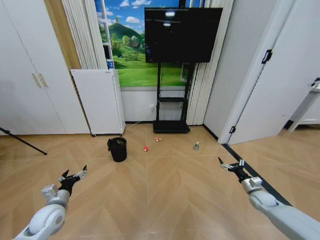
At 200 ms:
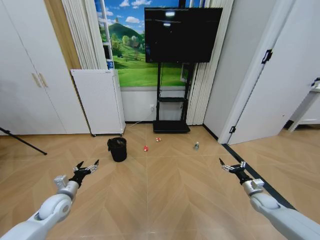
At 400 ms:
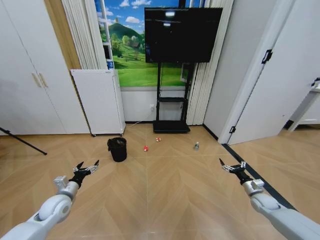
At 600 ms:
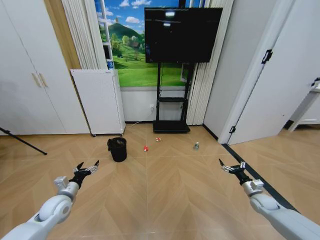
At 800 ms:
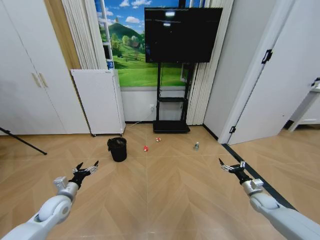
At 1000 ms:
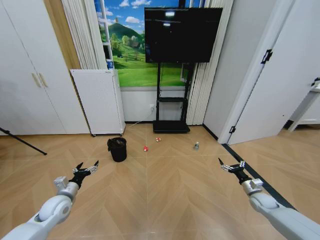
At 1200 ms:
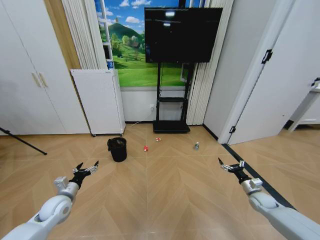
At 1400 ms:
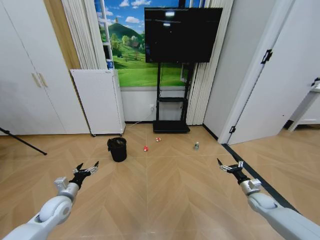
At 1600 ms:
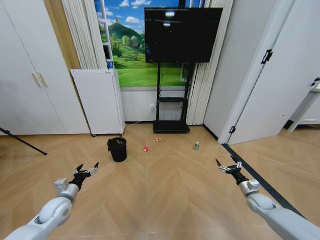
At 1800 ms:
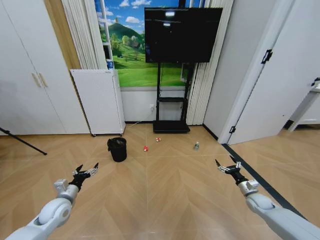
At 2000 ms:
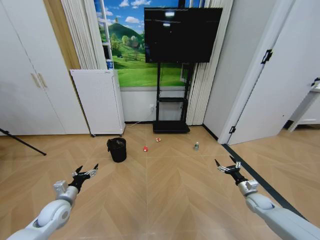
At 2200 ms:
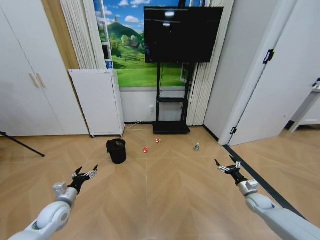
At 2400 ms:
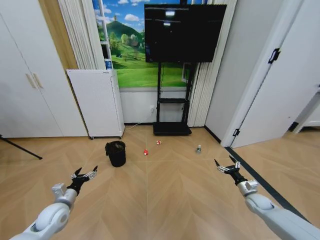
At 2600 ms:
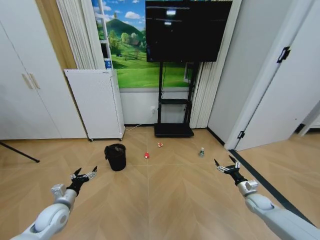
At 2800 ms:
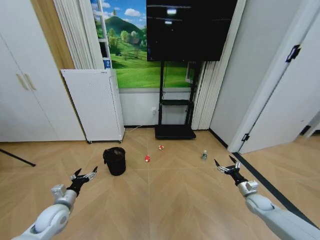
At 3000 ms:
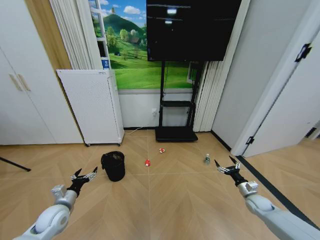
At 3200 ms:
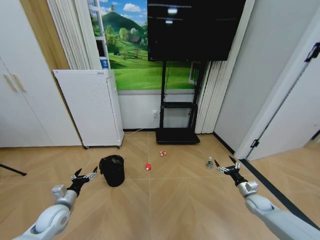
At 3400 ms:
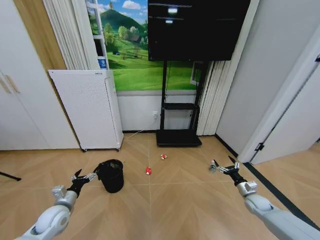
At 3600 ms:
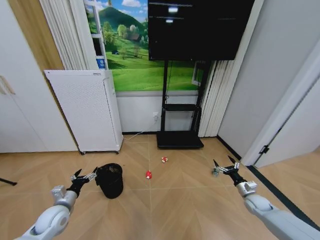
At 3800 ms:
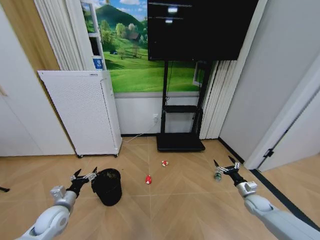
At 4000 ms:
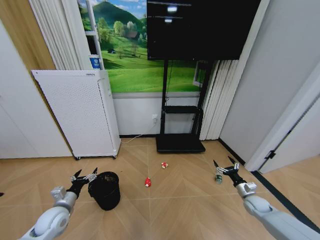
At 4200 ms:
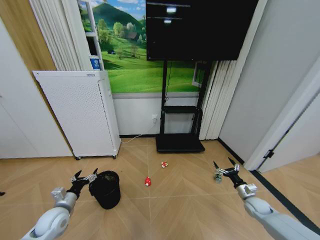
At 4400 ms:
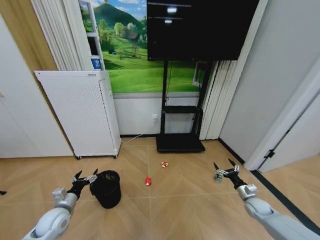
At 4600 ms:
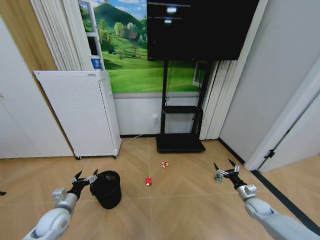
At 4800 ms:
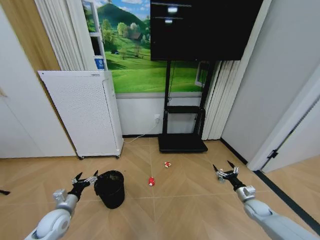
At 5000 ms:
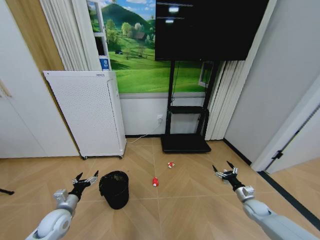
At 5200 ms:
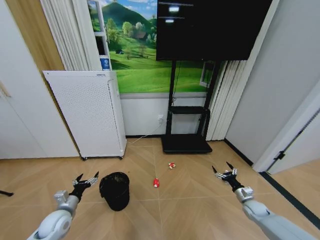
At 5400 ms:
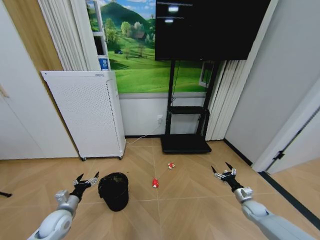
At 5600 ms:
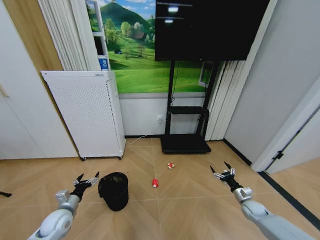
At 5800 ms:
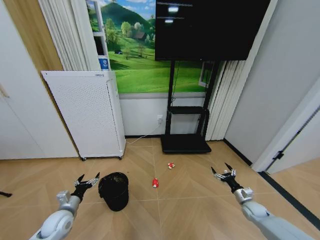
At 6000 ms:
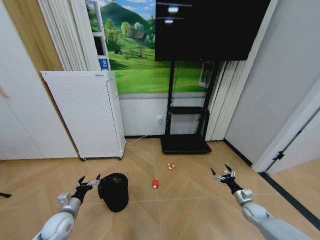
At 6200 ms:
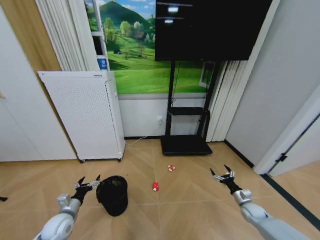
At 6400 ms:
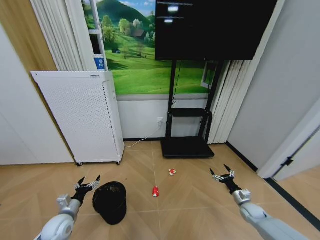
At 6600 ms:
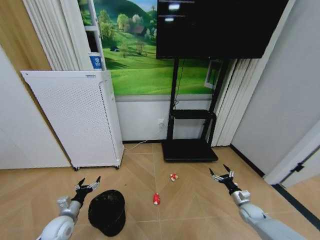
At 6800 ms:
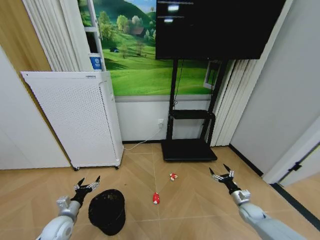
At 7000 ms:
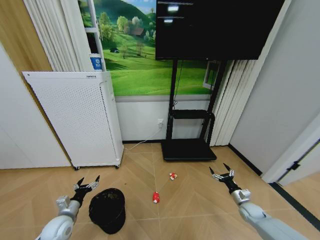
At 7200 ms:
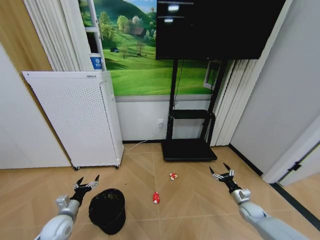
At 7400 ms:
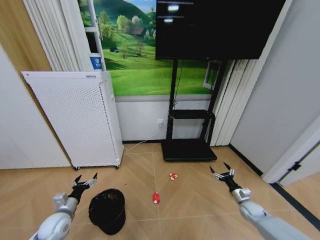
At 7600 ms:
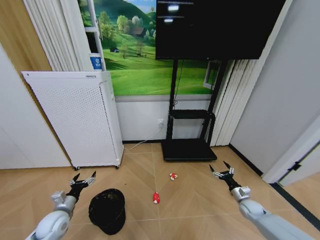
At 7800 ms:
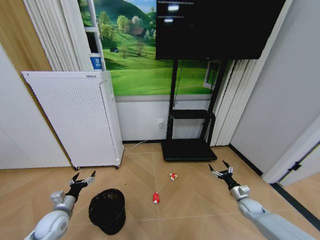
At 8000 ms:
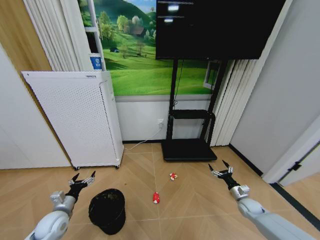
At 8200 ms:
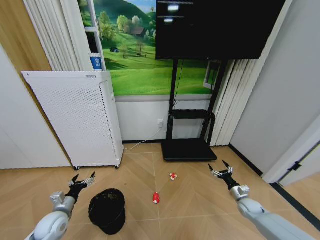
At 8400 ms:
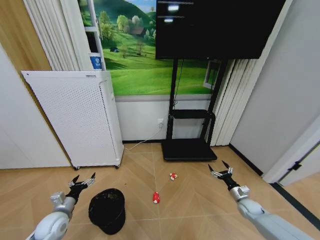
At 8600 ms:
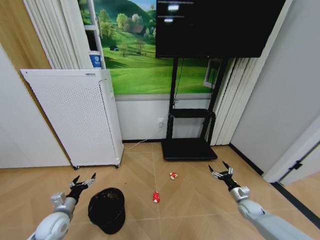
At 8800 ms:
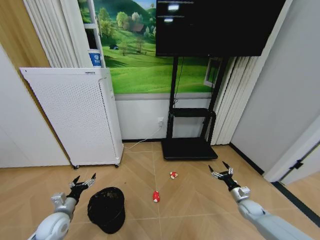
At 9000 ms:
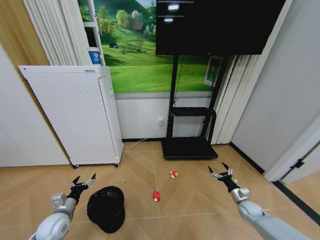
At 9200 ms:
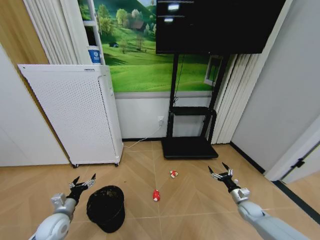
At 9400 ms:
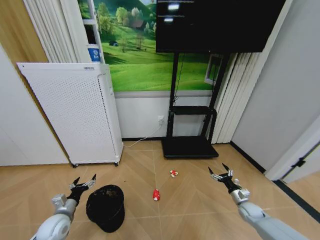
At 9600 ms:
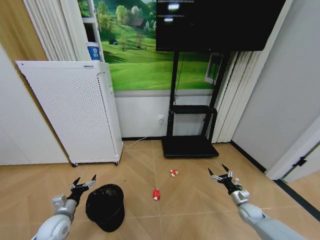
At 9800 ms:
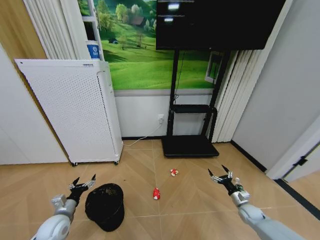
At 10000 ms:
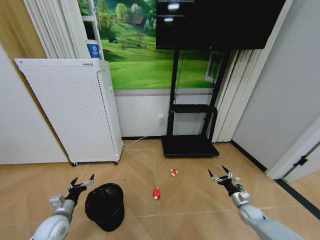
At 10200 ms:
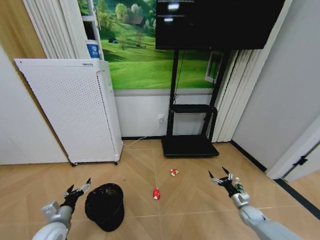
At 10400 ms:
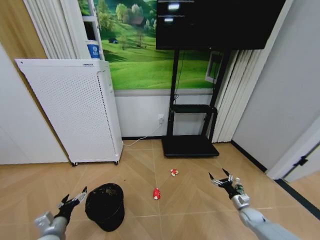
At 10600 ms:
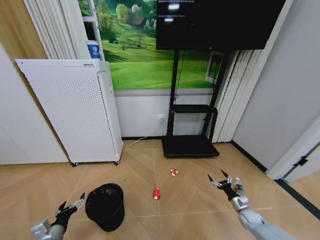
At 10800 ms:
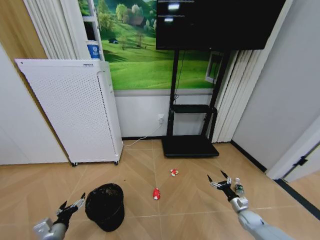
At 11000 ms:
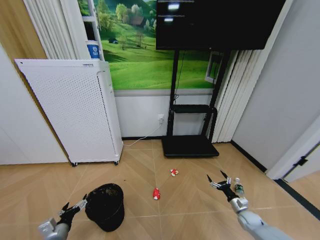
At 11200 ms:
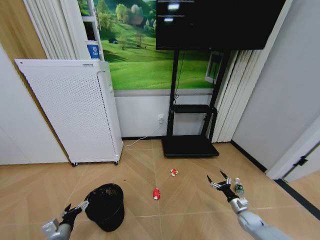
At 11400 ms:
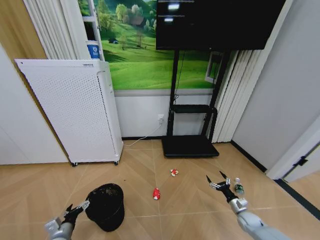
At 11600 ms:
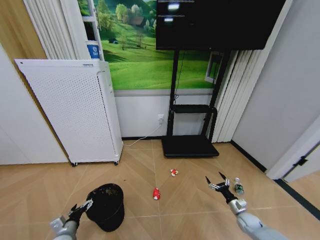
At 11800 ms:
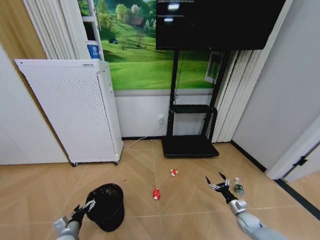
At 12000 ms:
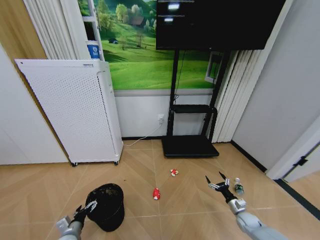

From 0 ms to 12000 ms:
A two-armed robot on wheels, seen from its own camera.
Task of the whole recording: Pick up the trash bin and place the garbage on the floor into it.
From 7600 ms to 9000 ms: Neither gripper changes place.
From 9000 ms to 10400 ms: The left gripper shifts roughly 5 cm backward.
From 10400 ms to 12000 ms: The left gripper heads downward, covering some 10 cm.

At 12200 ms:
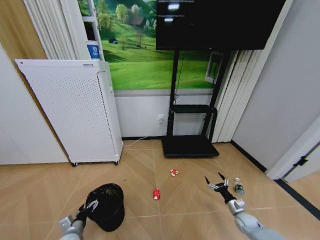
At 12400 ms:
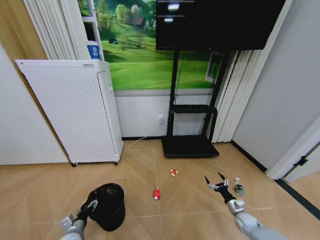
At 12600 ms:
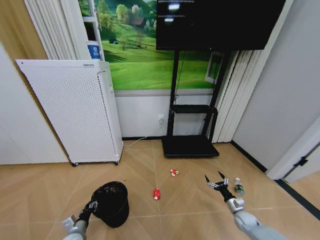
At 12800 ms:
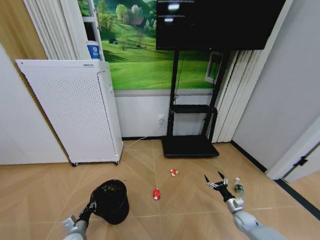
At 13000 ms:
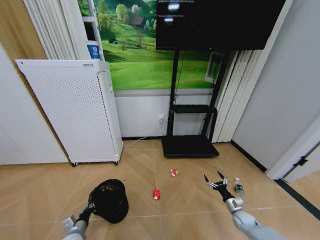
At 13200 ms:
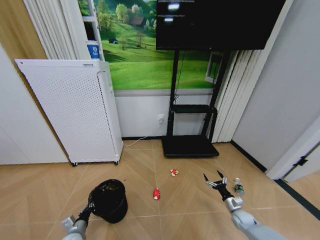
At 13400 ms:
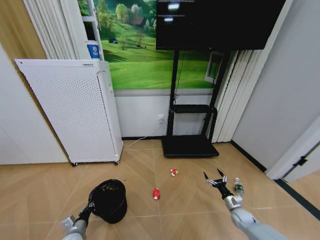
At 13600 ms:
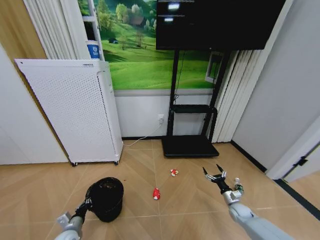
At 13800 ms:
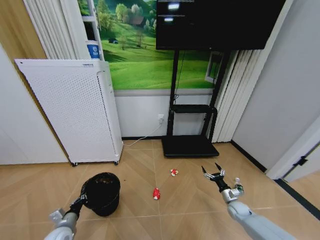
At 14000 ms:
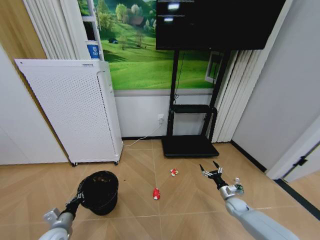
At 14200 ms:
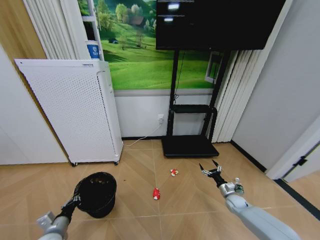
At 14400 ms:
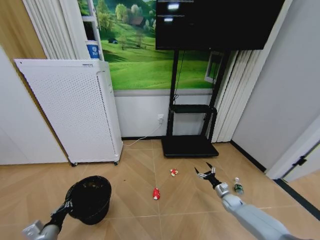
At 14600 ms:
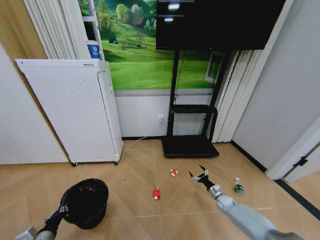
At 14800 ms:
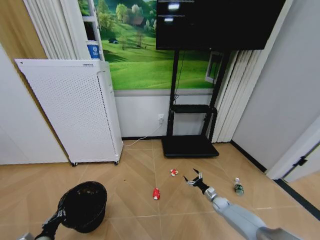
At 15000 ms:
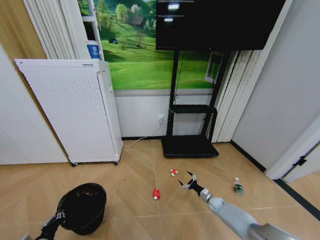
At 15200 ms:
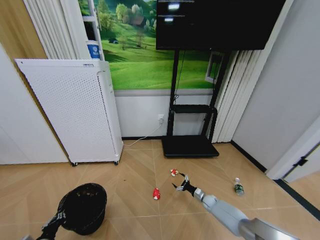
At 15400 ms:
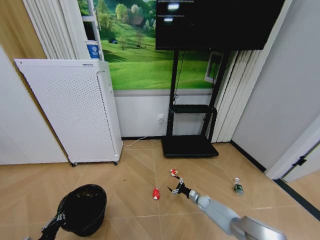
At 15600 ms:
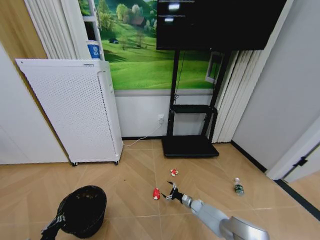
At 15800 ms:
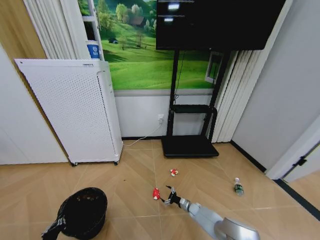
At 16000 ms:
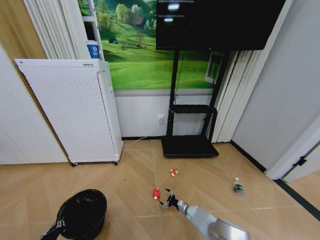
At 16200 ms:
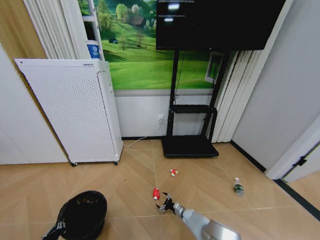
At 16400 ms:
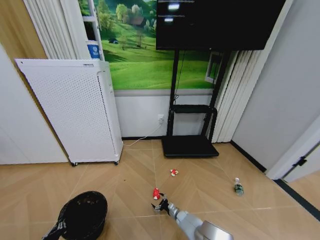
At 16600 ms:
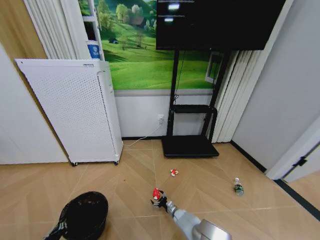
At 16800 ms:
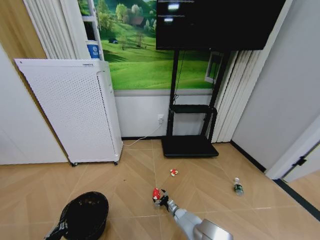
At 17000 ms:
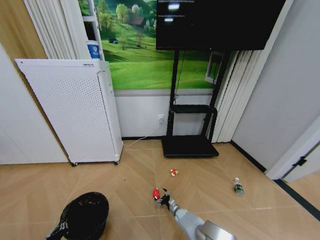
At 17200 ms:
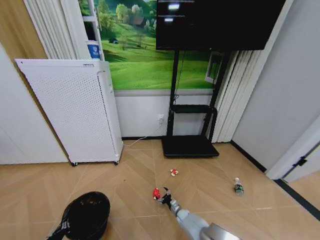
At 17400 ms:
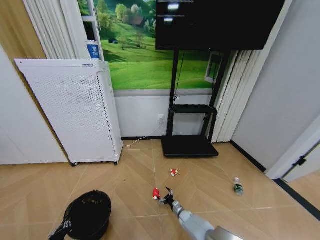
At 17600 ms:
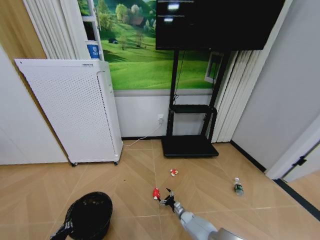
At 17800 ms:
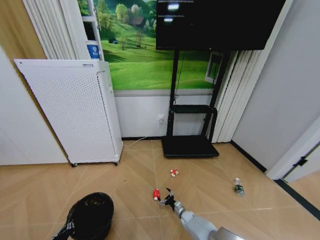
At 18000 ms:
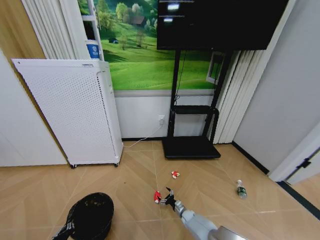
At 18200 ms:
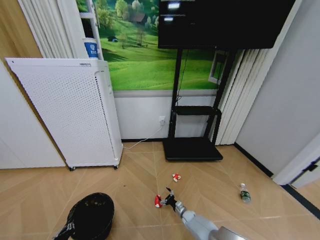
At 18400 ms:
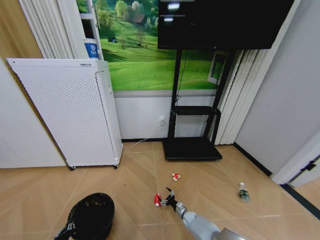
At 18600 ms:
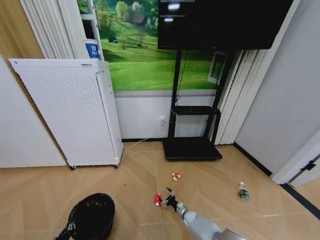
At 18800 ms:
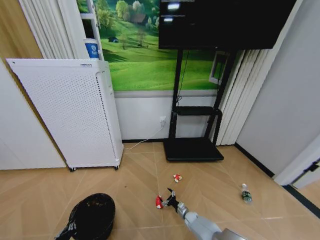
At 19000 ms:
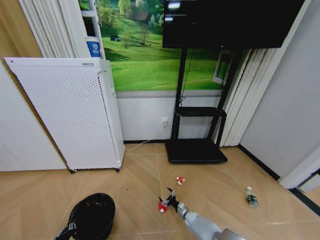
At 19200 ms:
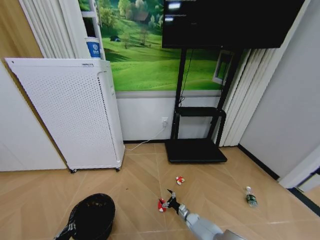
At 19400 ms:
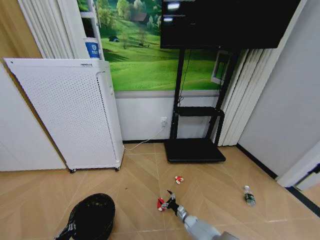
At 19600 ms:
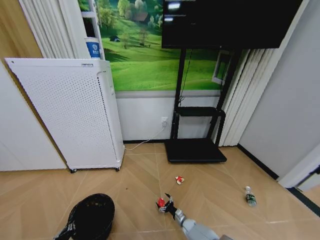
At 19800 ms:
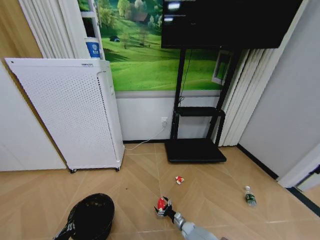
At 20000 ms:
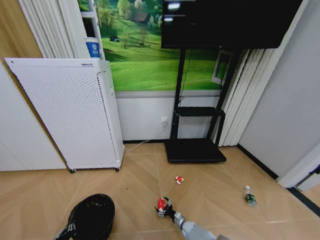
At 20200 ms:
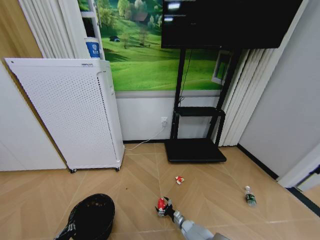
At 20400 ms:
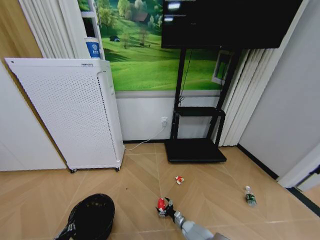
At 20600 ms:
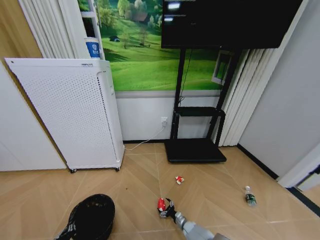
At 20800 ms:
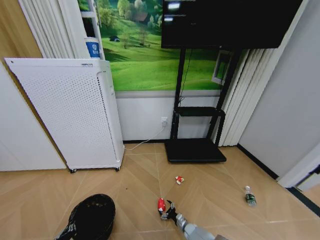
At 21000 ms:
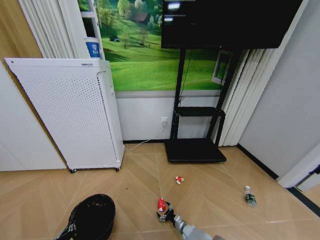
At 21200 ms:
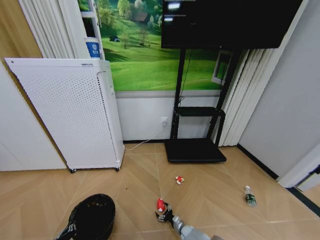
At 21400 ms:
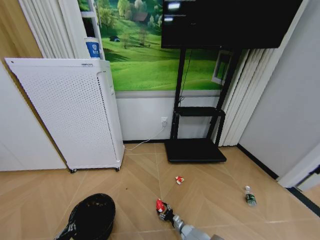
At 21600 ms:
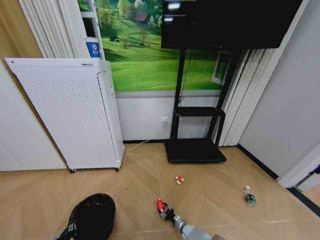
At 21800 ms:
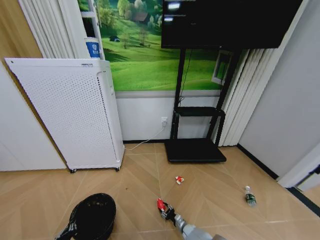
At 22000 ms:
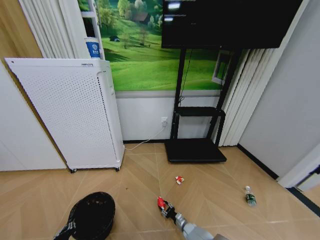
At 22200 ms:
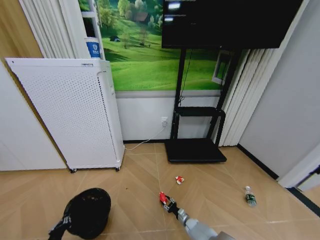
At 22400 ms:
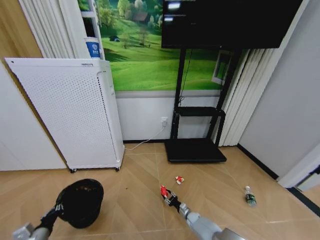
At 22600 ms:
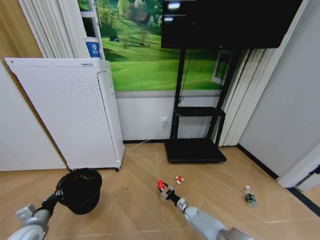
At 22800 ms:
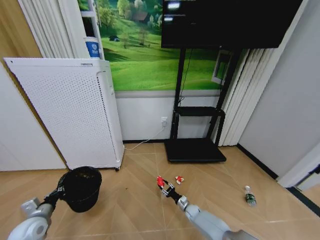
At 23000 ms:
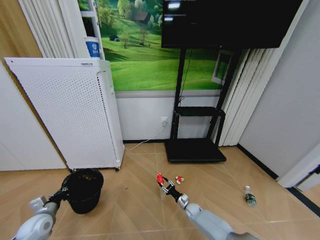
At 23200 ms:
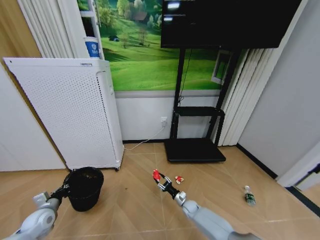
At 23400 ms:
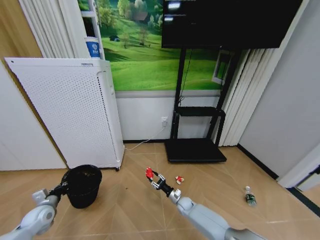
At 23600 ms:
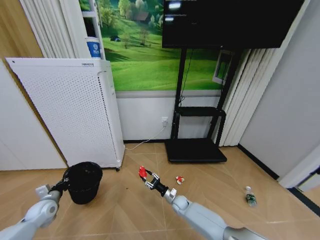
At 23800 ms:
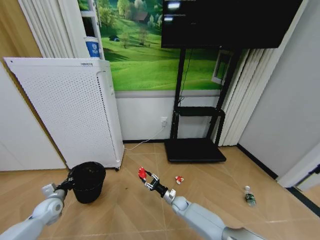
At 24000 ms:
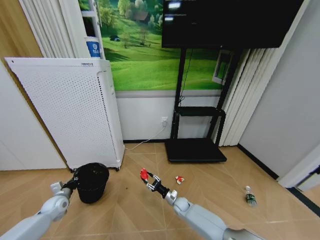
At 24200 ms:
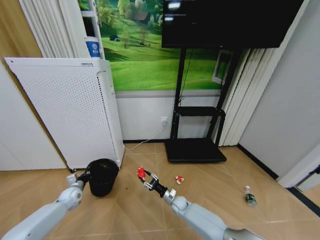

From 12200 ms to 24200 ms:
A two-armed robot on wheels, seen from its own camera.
Task of the whole recording: Pick up the trash bin and place the garbage on the floor into it.
From 12200 ms to 13800 ms: The left gripper closes its fingers; the right gripper changes place by roughly 5 cm.
From 13800 ms to 15200 ms: The left gripper travels backward by roughly 10 cm; the right gripper moves to the left, downward and forward, about 15 cm.
From 15200 ms to 16600 ms: The right gripper travels to the left and downward by approximately 20 cm.
From 16600 ms to 18200 ms: The right gripper heads to the right, covering some 5 cm.
From 18200 ms to 19800 ms: The right gripper shifts approximately 5 cm backward.
From 19800 ms to 21200 ms: The grippers stay close to where they were, moving slightly.
From 21200 ms to 22600 ms: The left gripper travels forward, upward and to the left by about 15 cm. Meanwhile the right gripper heads forward and upward, covering roughly 10 cm, and closes.
From 22600 ms to 24200 ms: The right gripper goes about 15 cm upward and to the left; the left gripper heads forward, covering about 20 cm.
